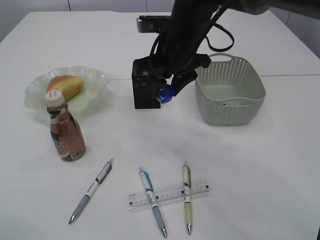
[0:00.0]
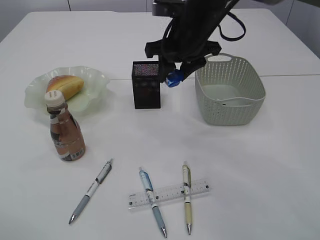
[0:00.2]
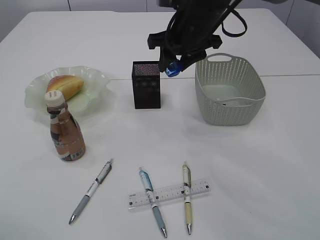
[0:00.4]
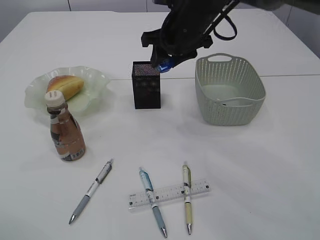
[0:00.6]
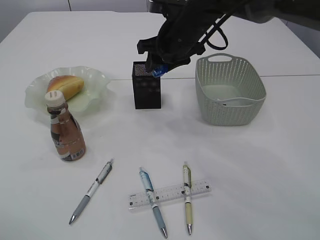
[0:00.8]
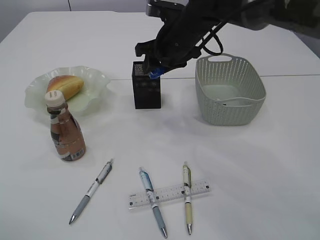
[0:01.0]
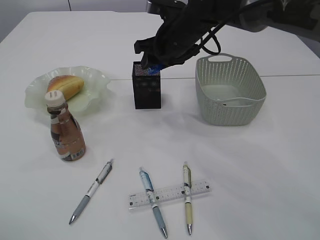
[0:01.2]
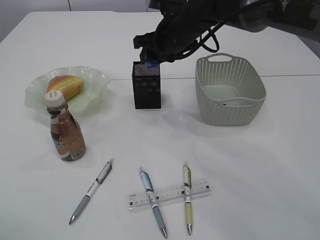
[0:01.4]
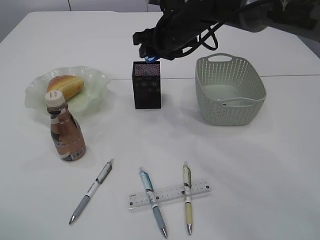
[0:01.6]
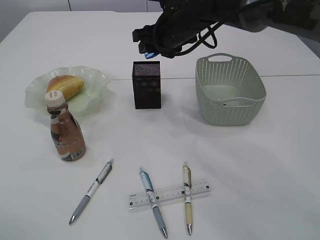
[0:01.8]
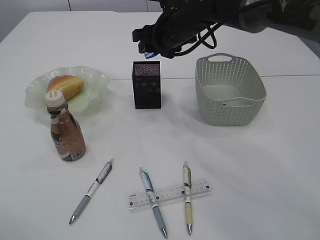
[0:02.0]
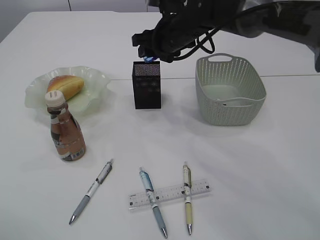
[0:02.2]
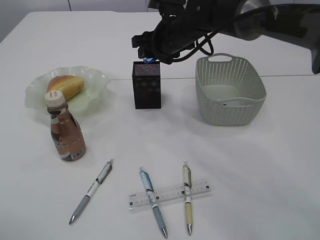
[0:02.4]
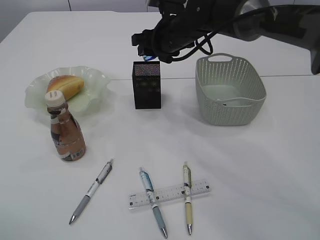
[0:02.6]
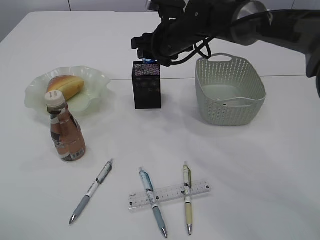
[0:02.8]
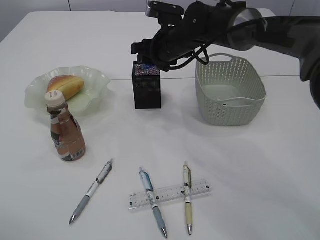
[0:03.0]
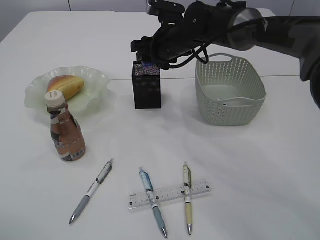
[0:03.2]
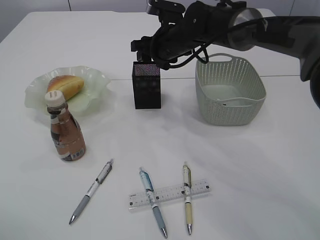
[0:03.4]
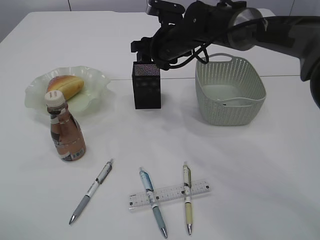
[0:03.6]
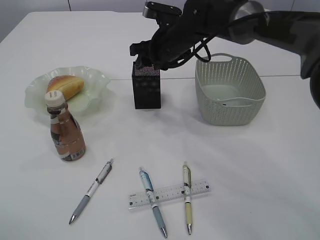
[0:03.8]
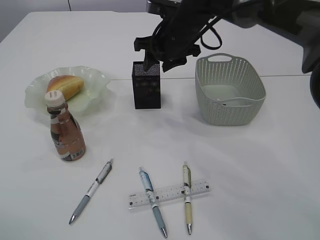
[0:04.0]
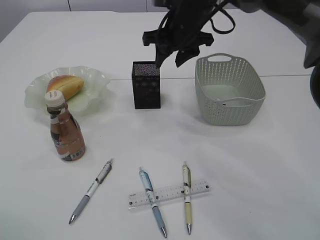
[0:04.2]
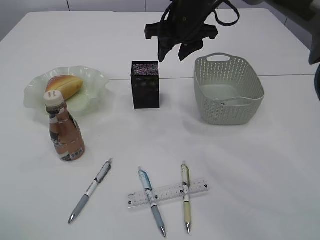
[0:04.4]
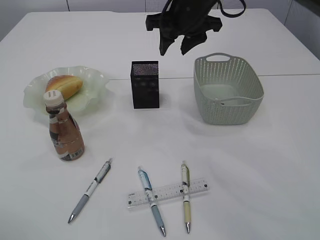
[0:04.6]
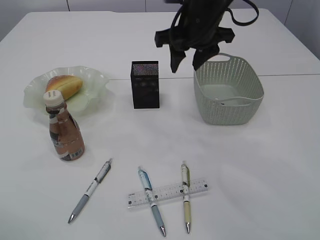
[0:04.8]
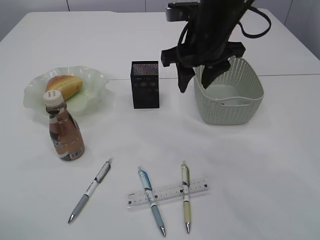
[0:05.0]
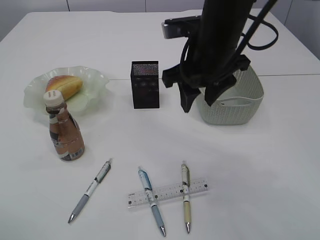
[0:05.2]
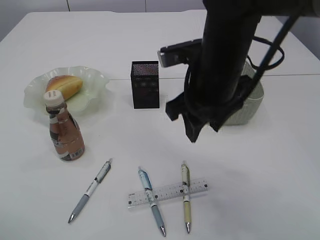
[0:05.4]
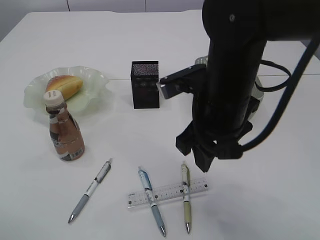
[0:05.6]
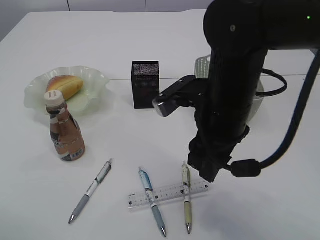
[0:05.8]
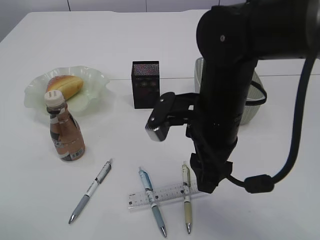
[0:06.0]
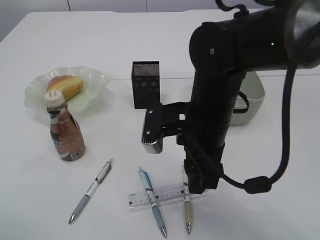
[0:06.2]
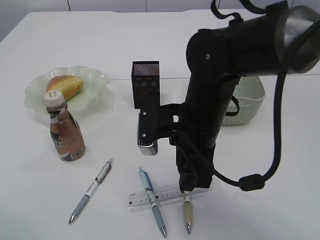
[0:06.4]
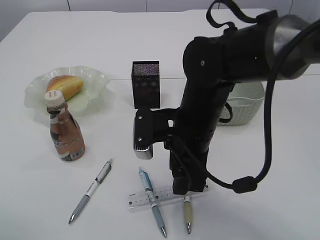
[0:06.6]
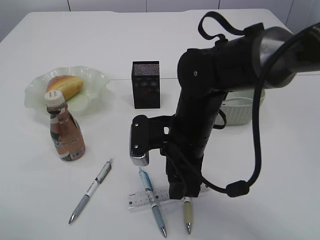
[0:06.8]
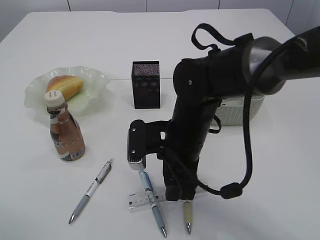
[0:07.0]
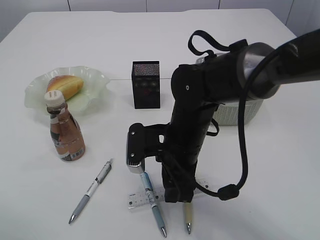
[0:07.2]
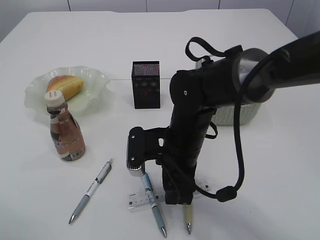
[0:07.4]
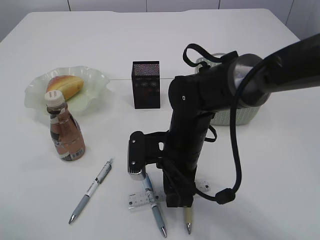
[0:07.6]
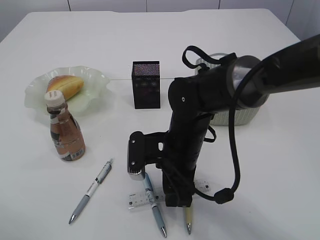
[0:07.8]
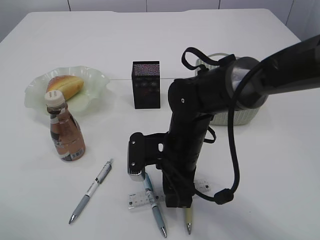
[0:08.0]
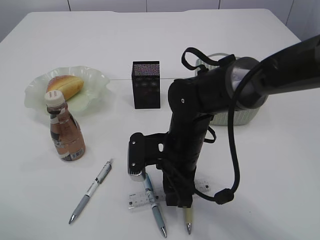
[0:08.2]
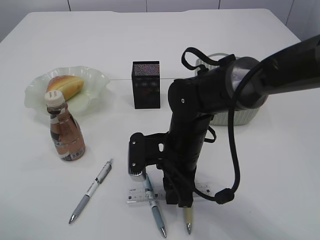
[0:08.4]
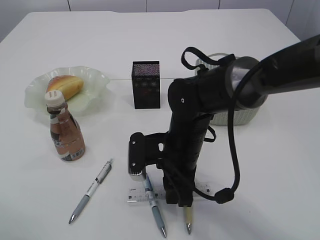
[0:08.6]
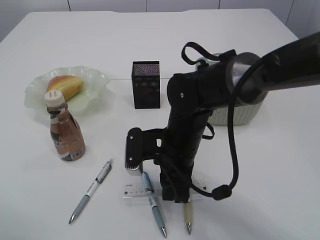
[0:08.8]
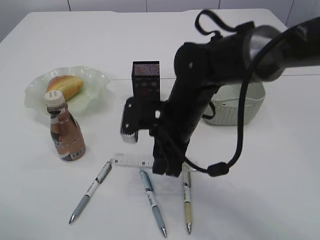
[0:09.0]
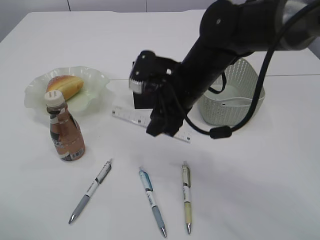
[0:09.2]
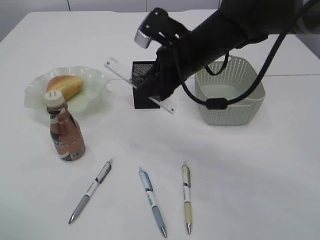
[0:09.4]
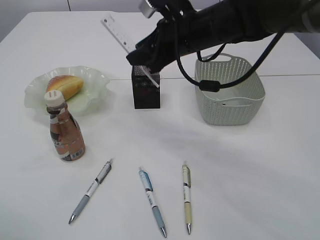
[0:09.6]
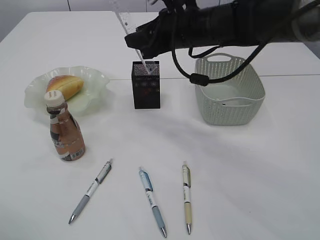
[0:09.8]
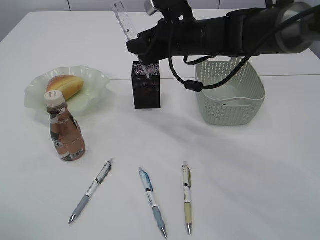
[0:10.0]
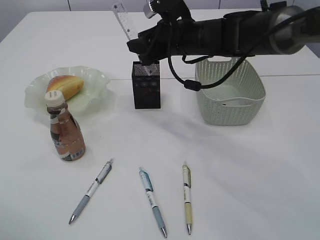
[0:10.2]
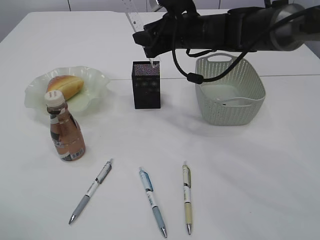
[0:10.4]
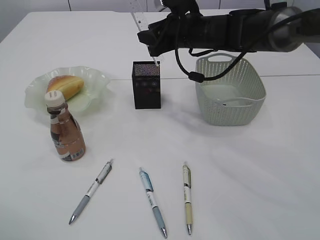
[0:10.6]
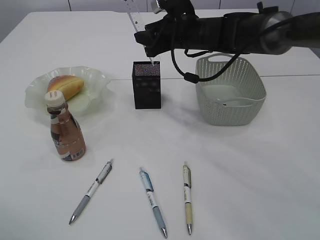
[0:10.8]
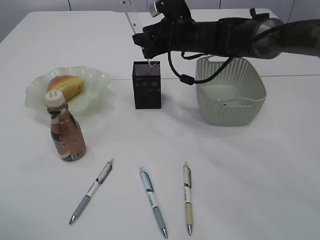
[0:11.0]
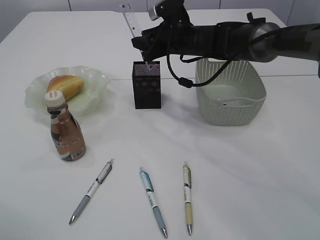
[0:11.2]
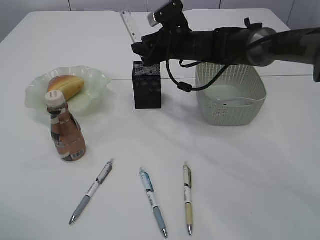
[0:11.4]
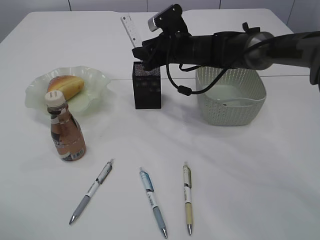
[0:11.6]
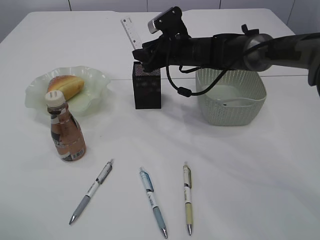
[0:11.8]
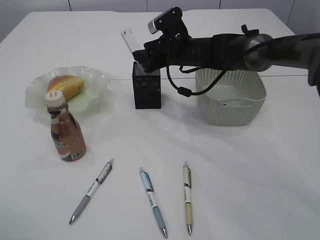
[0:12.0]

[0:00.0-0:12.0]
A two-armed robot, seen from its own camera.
Step, 0:00.0 to 0:03.8: Place the blue pencil sharpener into the pen holder.
Step, 0:04.0 to 0:09.2: pick up the ruler.
0:00.0 to 0:01.6: The right gripper heads forward, covering about 10 cm.
0:01.6 to 0:03.0: The grippers stay close to where they were, moving slightly.
0:03.0 to 0:04.4: The right gripper heads upward, covering roughly 5 cm.
0:04.4 to 0:06.0: The right gripper moves backward, roughly 20 cm.
0:06.0 to 0:07.6: The right gripper shifts about 10 cm downward.
0:07.6 to 0:09.0: The grippers make only small movements.
0:09.0 to 0:10.4: The right gripper heads forward and upward, covering approximately 15 cm.
0:10.4 to 0:12.0: The right gripper travels downward by approximately 5 cm.

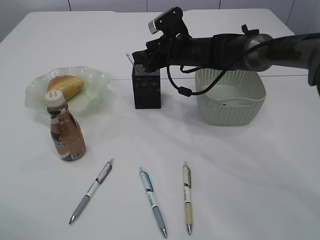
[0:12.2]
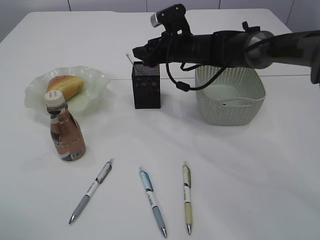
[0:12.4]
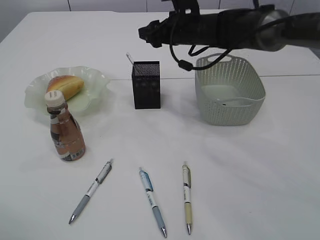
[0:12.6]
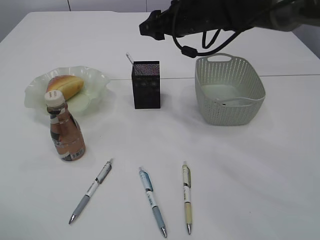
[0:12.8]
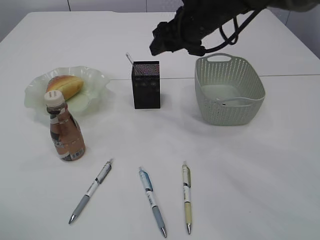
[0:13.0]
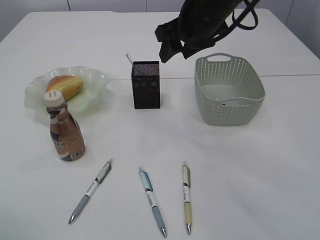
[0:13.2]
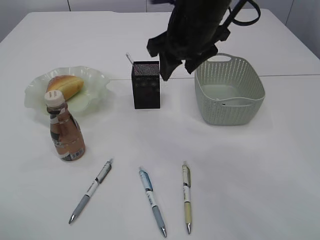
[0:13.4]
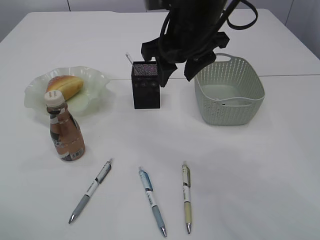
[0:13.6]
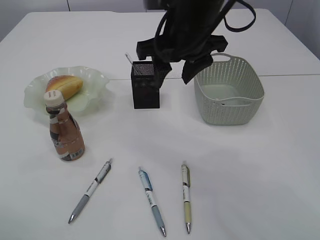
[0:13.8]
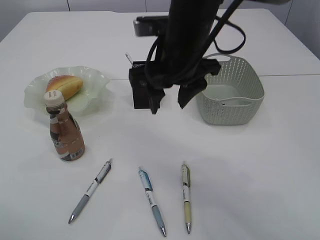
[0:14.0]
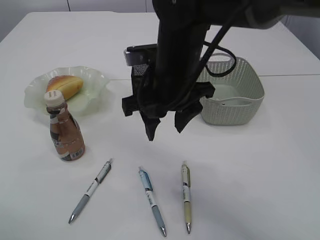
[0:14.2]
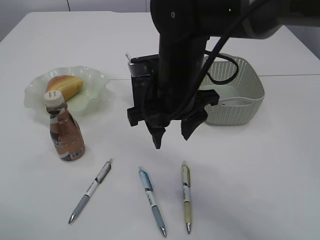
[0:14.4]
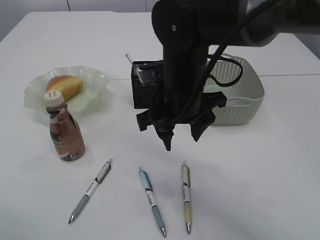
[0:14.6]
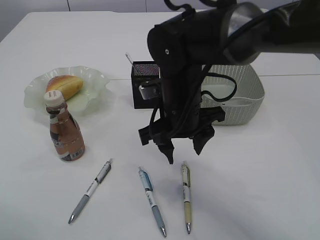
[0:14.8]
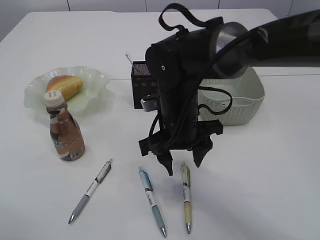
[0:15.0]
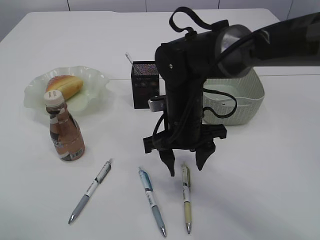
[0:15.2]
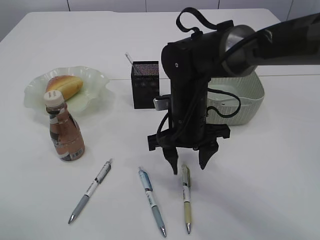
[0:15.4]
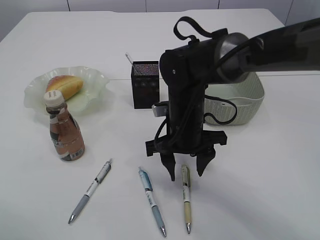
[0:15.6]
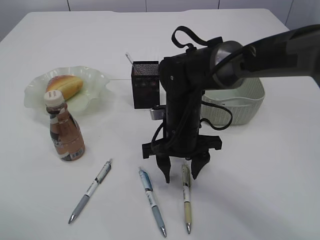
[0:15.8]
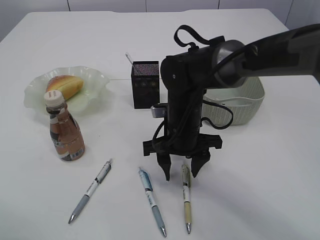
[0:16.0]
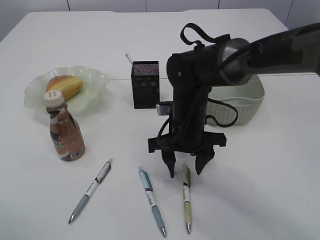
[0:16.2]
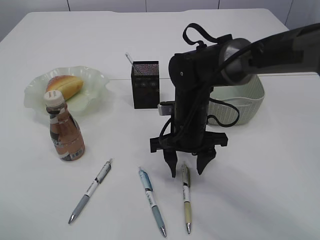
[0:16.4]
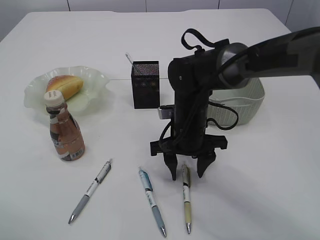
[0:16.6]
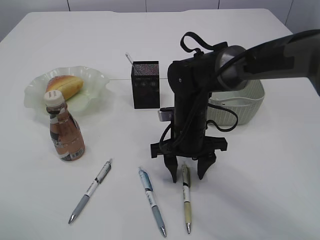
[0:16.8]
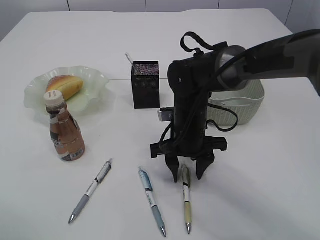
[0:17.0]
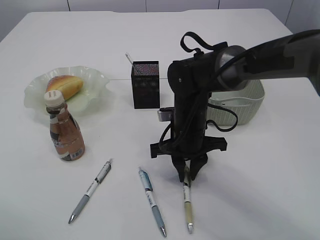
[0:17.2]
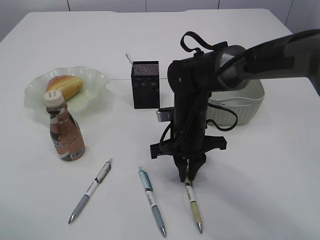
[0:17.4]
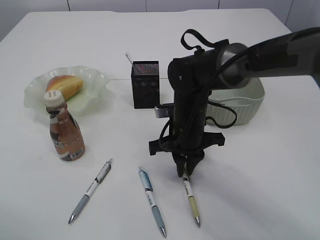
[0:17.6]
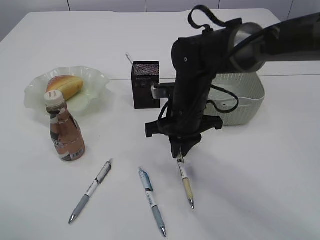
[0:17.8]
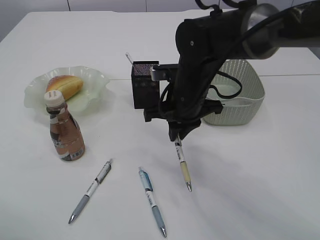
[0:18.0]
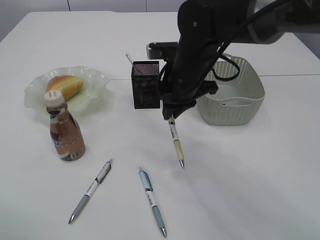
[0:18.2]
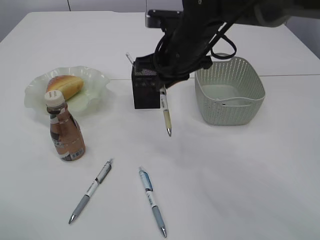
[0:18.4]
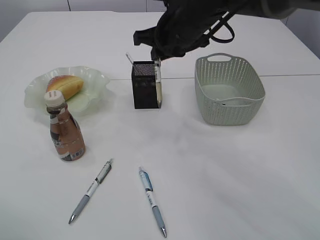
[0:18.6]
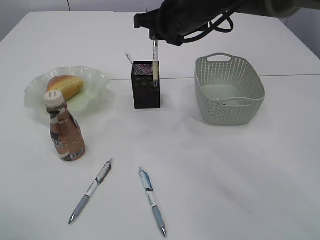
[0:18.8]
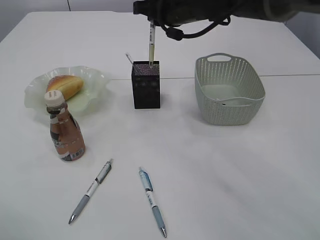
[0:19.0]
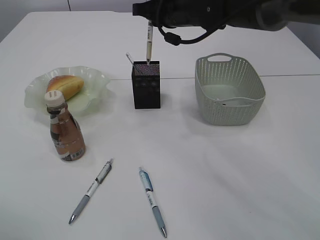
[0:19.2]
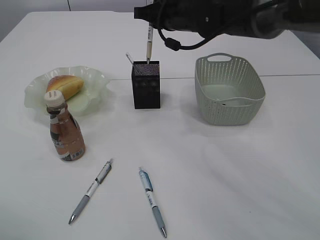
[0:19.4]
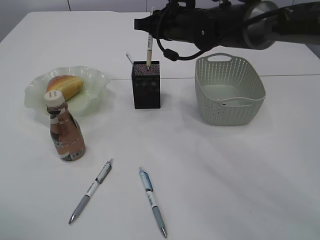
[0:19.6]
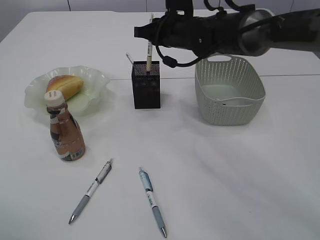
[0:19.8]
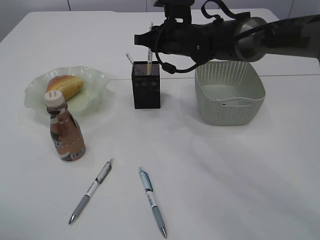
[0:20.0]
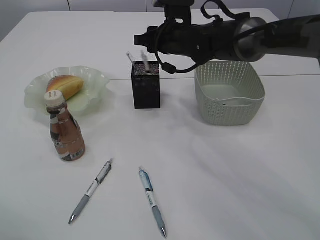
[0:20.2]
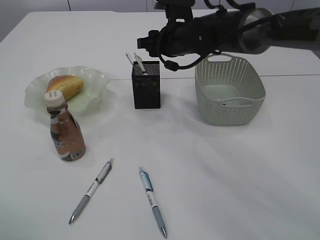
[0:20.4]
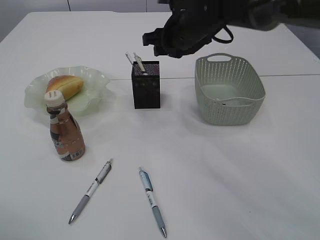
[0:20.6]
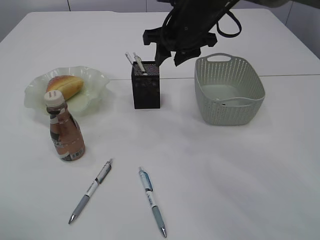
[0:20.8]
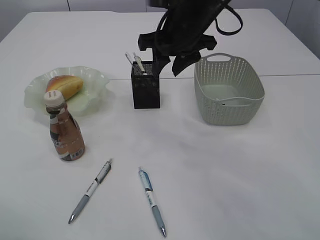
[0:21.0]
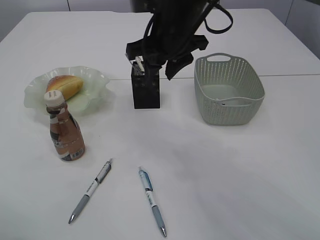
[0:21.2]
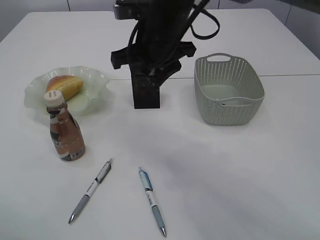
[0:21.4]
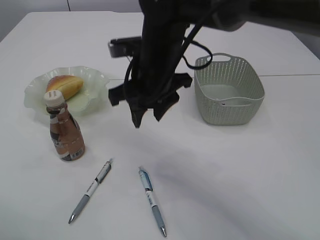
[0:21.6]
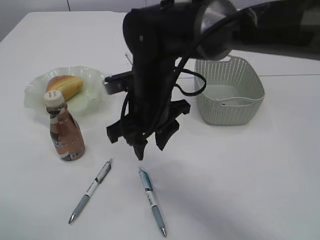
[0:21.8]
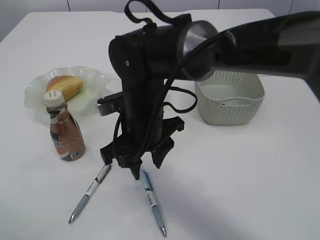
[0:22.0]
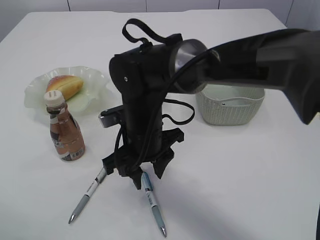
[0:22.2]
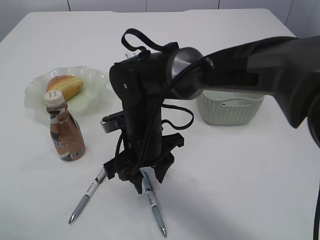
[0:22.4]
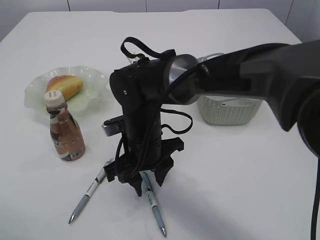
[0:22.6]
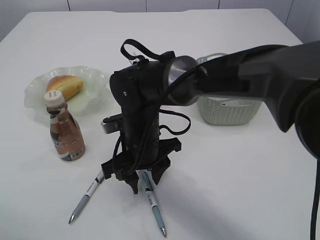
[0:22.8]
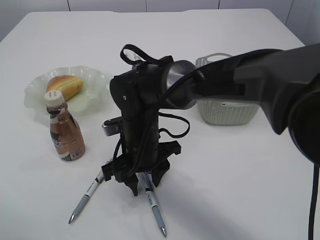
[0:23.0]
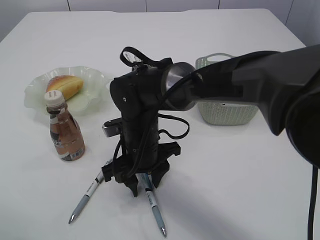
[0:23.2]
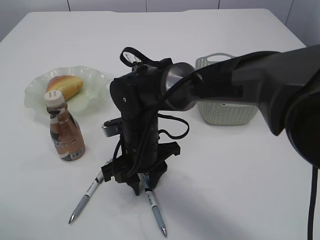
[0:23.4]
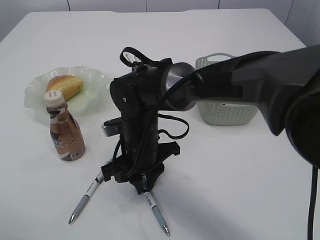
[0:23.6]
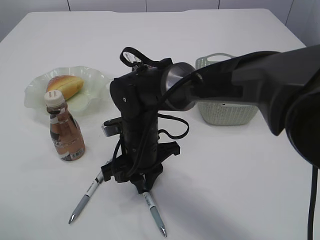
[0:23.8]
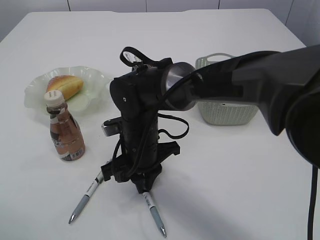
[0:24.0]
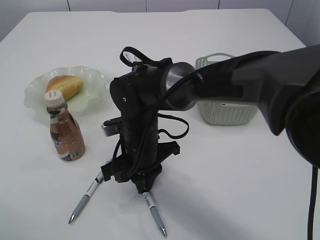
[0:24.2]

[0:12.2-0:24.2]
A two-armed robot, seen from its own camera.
Step, 0:12.6 to 0:18.0: Pick up the pen with right arm.
Step, 0:18.2 to 0:20.4: Place the pen into the pen holder.
0:12.2 to 0:13.8: The right gripper travels backward and upward by approximately 20 cm.
0:13.8 to 0:15.2: The right gripper is displaced downward by roughly 15 cm.
0:15.2 to 0:16.6: There are only small adjustments of the grippers.
0:16.6 to 0:18.2: The right gripper goes roughly 10 cm upward, and closes its fingers.
0:18.2 to 0:19.8: The right gripper moves forward, approximately 10 cm.
0:19.8 to 0:21.2: The right gripper moves backward and upward, approximately 10 cm, and opens.
0:21.2 to 0:22.6: The right gripper is displaced downward, backward and to the left by approximately 20 cm.
0:22.6 to 0:24.2: The right gripper closes up.
